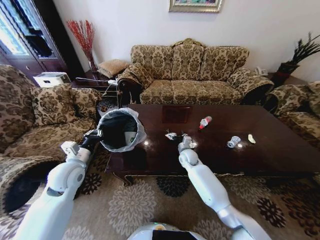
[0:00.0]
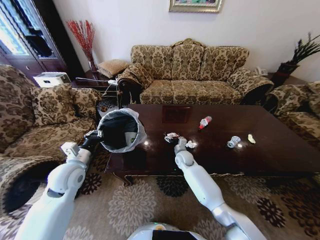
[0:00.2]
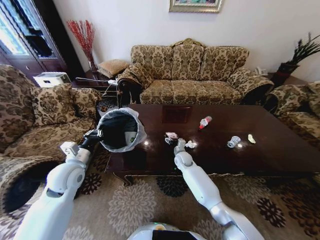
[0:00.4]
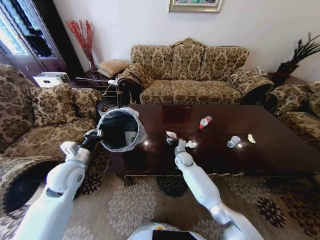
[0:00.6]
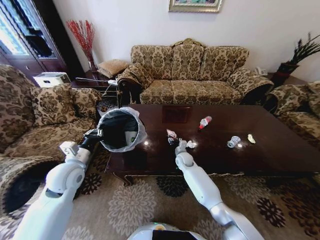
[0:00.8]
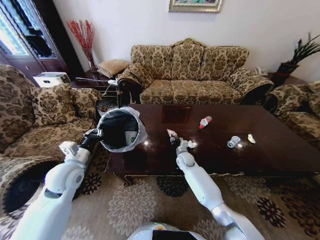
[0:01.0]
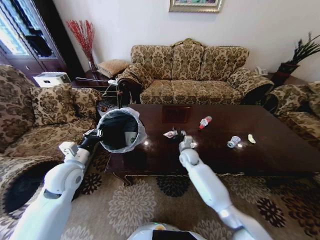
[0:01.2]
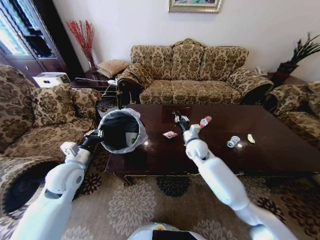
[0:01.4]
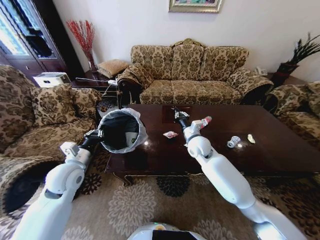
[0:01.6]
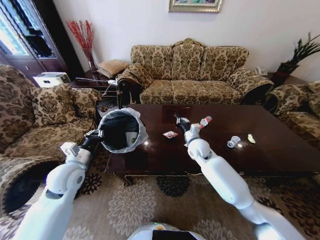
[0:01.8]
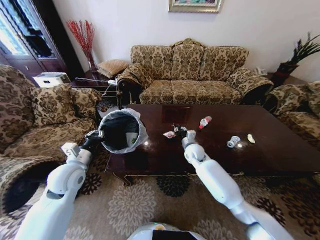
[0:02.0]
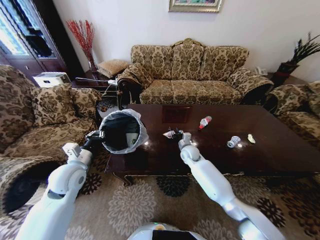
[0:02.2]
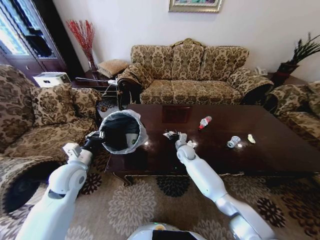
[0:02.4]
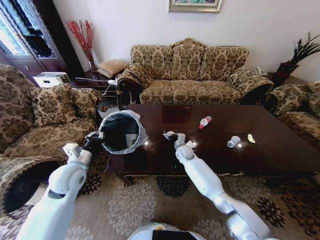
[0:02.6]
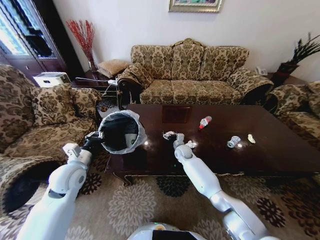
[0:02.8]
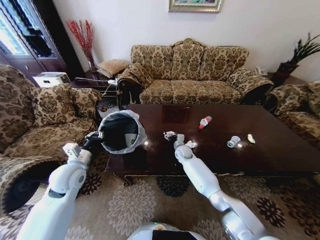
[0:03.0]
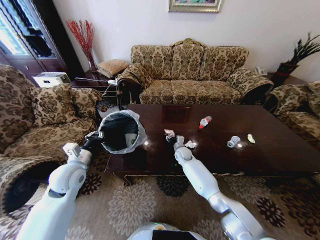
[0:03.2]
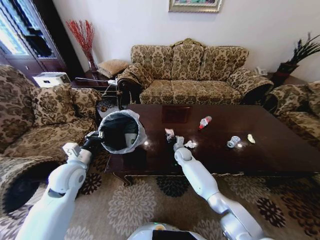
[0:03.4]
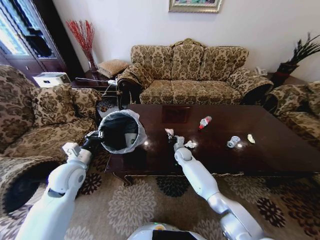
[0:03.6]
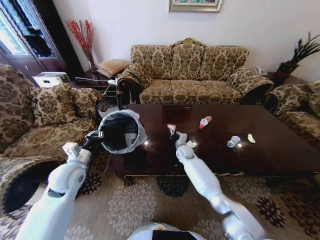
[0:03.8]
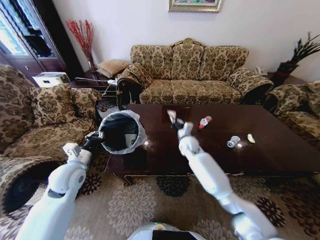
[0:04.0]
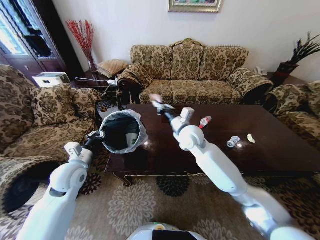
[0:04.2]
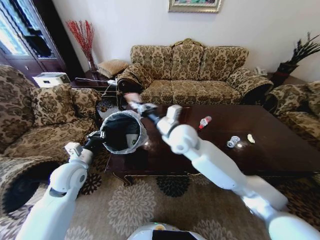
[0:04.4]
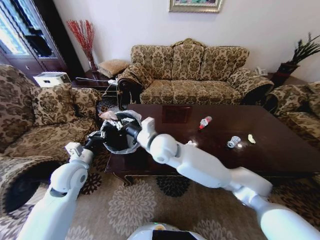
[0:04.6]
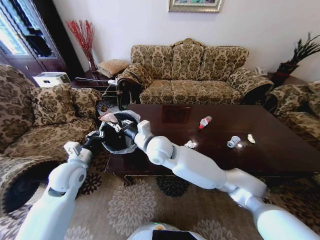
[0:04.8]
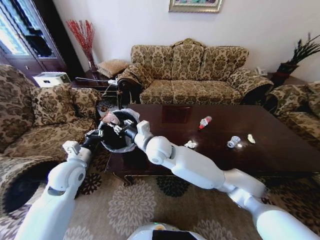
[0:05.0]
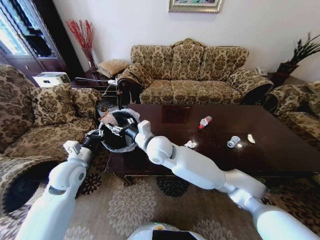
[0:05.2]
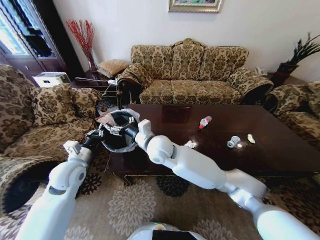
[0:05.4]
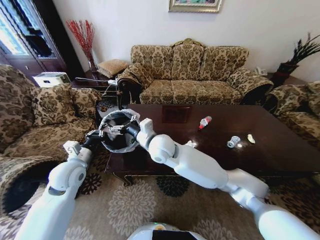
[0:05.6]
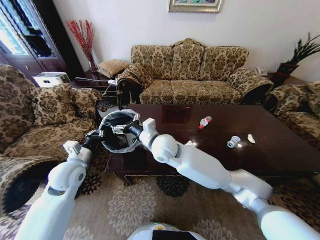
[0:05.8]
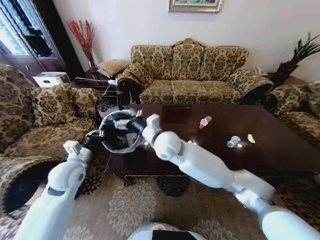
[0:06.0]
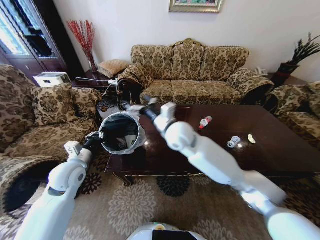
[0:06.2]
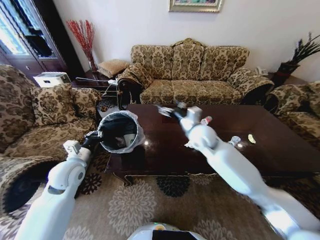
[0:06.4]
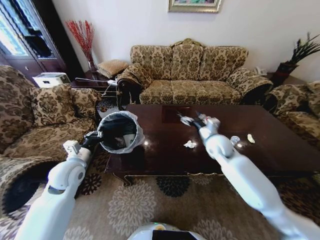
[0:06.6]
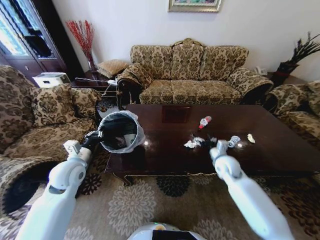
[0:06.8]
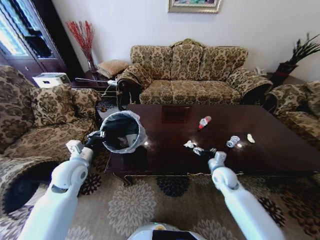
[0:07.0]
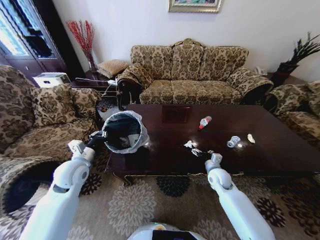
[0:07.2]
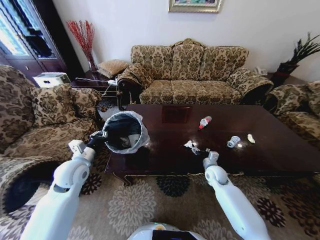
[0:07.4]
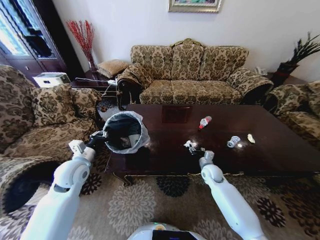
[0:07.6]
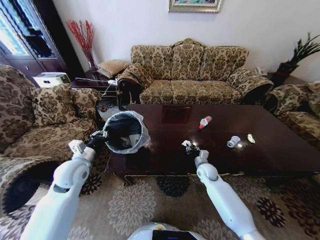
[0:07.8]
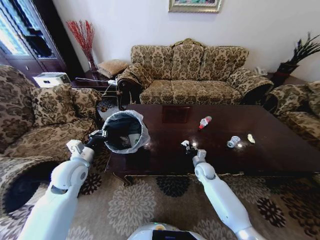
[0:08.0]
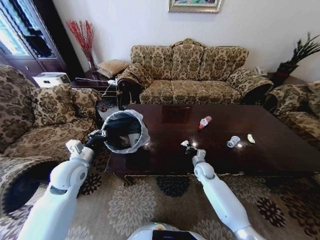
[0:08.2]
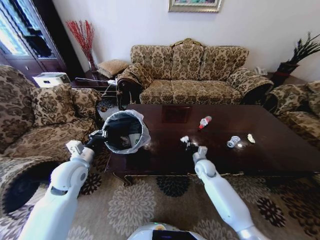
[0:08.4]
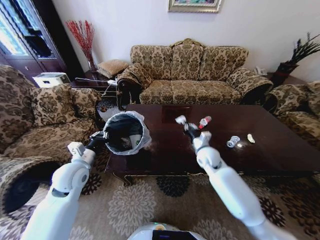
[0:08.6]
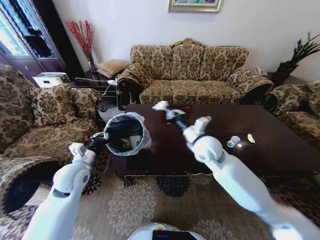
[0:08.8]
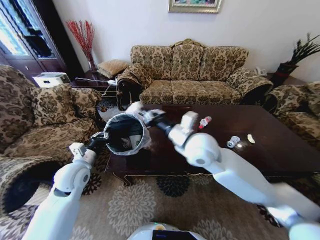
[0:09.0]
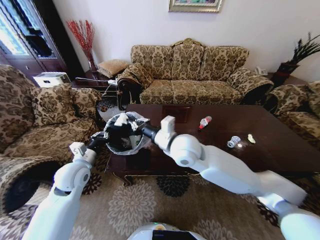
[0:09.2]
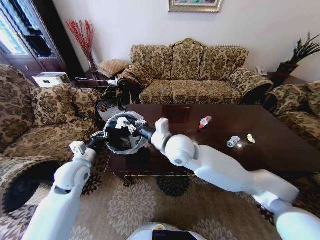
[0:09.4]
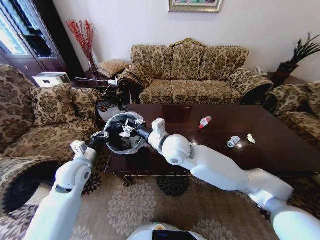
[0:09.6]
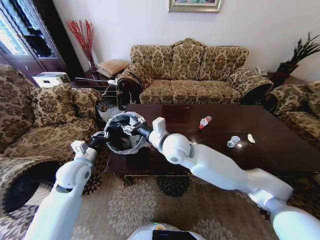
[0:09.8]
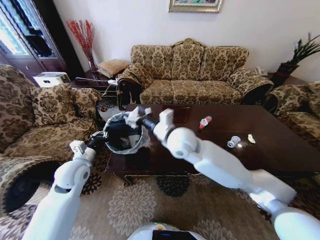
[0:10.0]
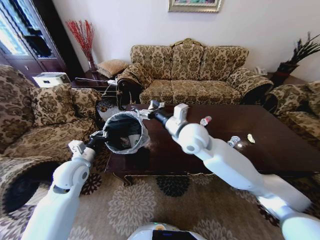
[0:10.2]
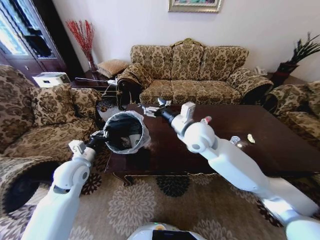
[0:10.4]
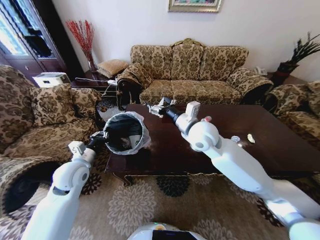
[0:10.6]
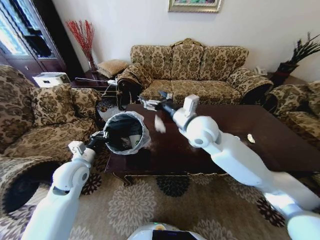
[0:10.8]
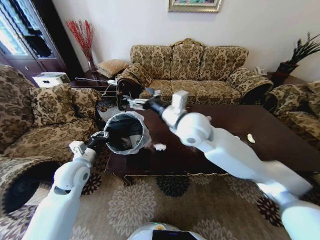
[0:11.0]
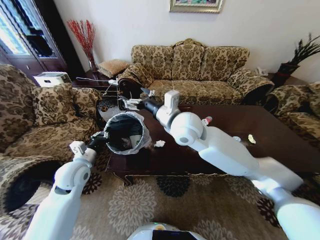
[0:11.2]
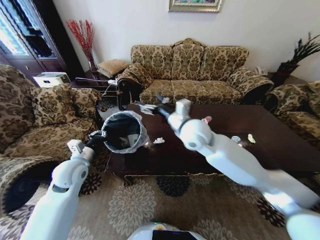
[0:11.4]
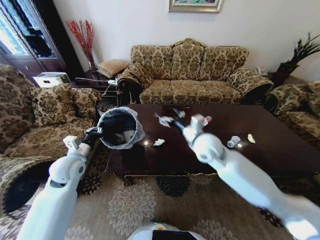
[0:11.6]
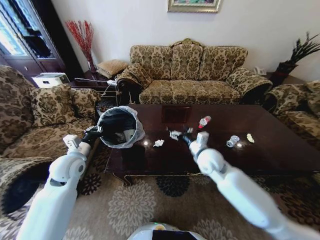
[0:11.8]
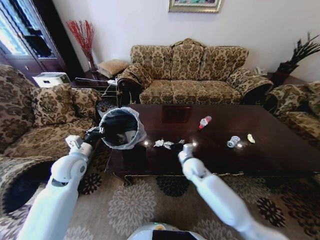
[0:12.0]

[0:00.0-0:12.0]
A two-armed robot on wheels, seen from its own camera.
Task of the whole recording: Move to the front of the table and place the trash on the table into the trash bin.
0:00.0 to 0:01.6: The right gripper is displaced upward by roughly 15 cm, and closes up.
0:01.6 to 0:03.0: The right gripper shifts about 20 cm downward and forward, and opens up.
0:03.0 to 0:04.4: The right gripper shifts roughly 30 cm upward and backward, and closes its fingers.
0:04.4 to 0:06.0: The right gripper opens up.
0:06.0 to 0:07.6: The right gripper shifts approximately 35 cm downward and to the right, and closes its fingers.
0:07.6 to 0:09.0: The right gripper goes roughly 35 cm upward and to the left, and closes up.
0:09.0 to 0:10.4: The right gripper reaches roughly 5 cm to the left, then returns, and opens.
0:10.4 to 0:12.0: The right gripper is displaced downward by about 25 cm.

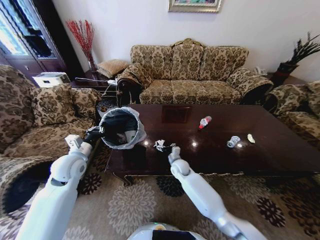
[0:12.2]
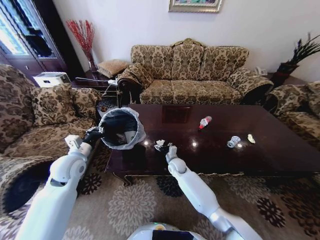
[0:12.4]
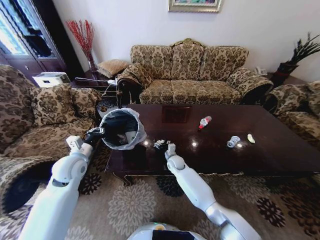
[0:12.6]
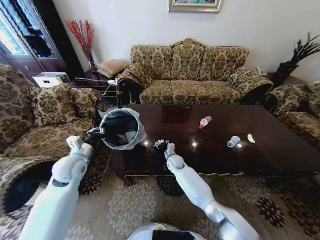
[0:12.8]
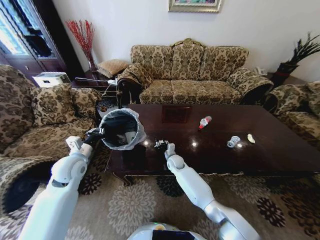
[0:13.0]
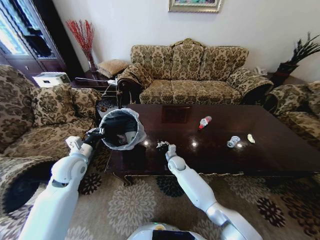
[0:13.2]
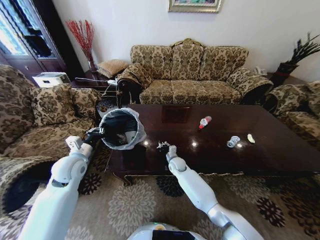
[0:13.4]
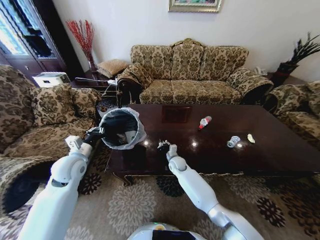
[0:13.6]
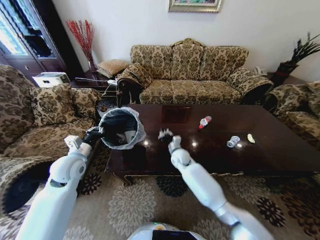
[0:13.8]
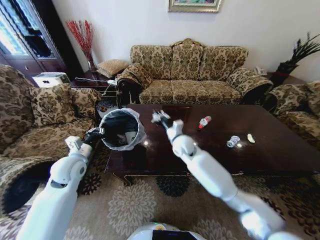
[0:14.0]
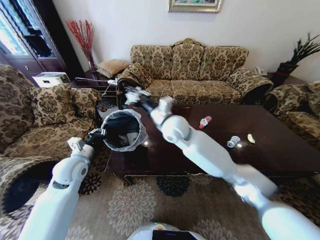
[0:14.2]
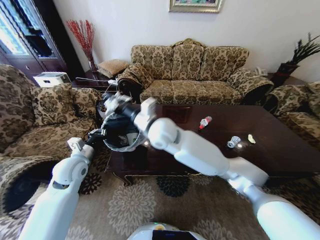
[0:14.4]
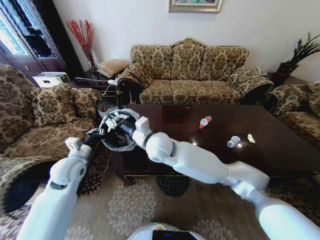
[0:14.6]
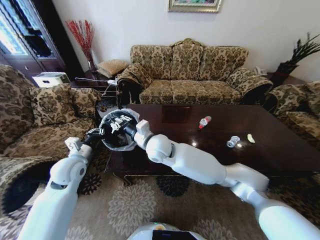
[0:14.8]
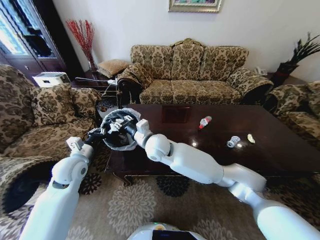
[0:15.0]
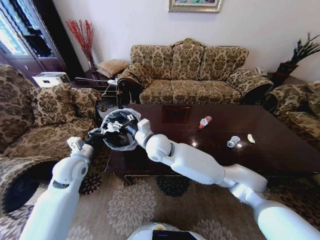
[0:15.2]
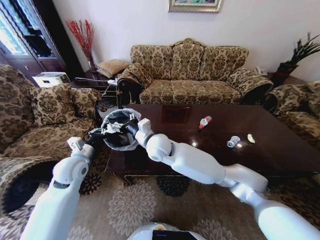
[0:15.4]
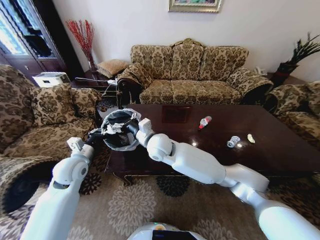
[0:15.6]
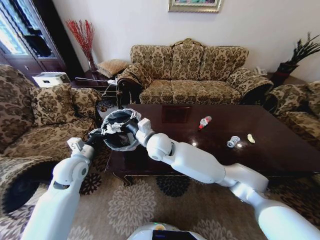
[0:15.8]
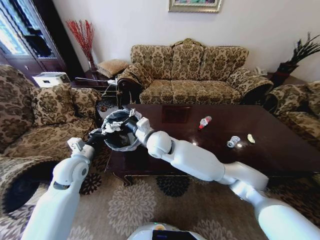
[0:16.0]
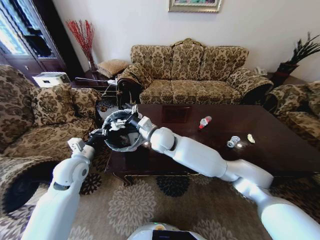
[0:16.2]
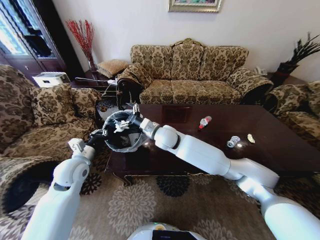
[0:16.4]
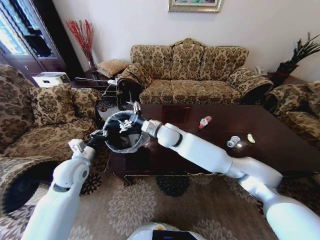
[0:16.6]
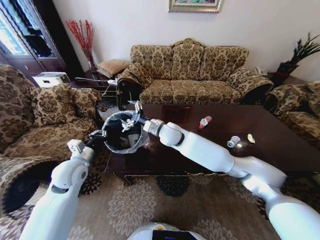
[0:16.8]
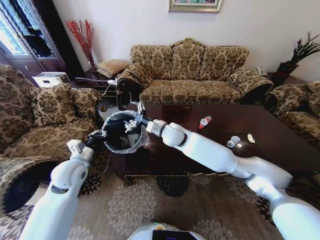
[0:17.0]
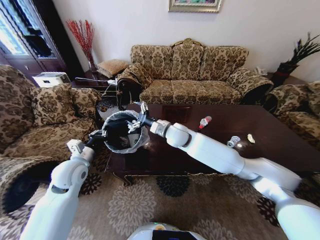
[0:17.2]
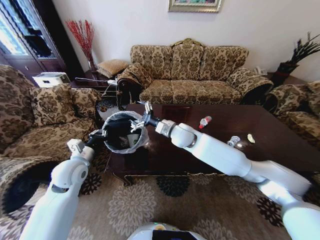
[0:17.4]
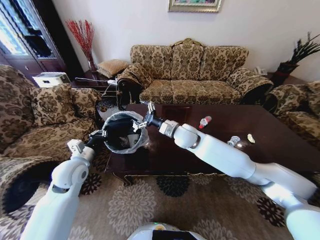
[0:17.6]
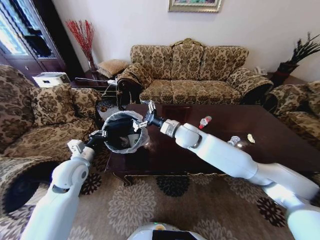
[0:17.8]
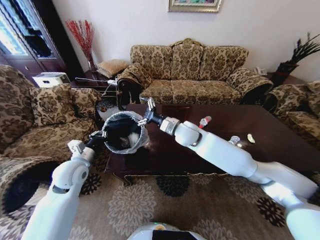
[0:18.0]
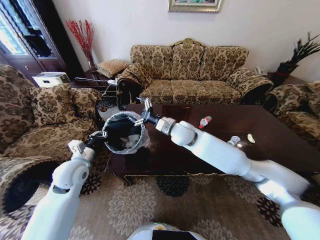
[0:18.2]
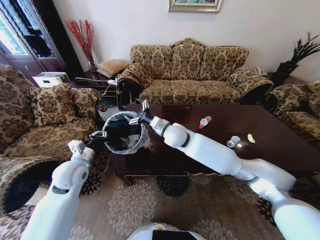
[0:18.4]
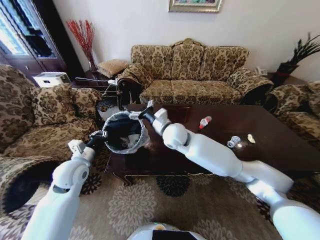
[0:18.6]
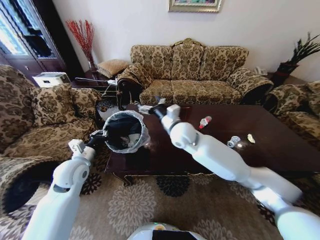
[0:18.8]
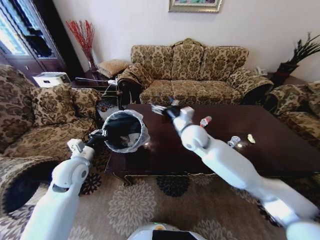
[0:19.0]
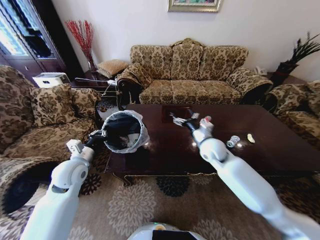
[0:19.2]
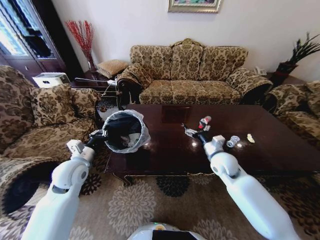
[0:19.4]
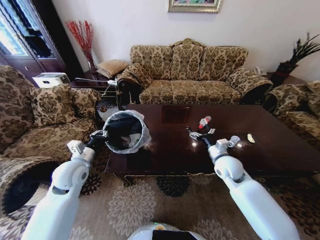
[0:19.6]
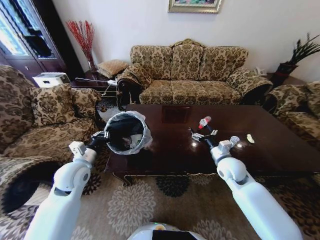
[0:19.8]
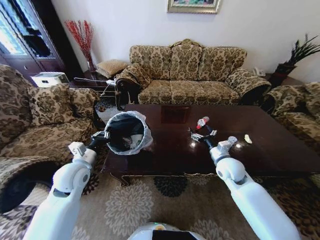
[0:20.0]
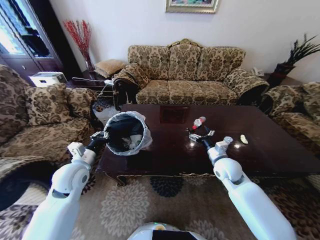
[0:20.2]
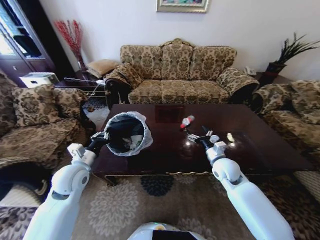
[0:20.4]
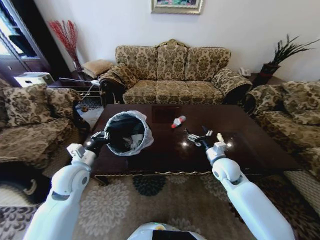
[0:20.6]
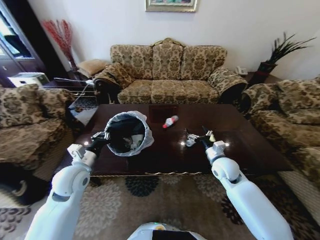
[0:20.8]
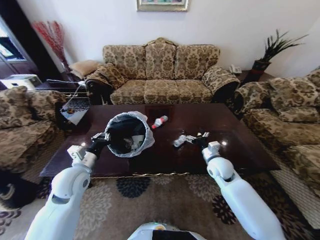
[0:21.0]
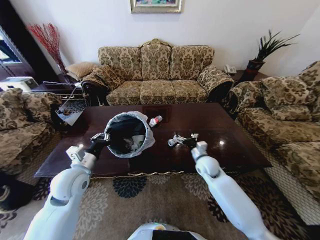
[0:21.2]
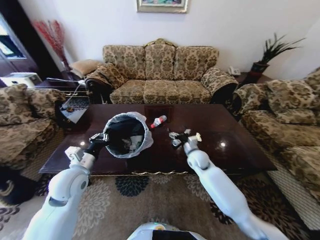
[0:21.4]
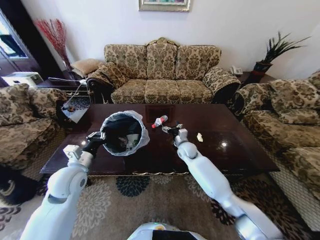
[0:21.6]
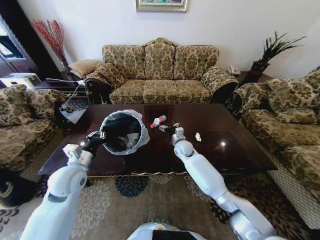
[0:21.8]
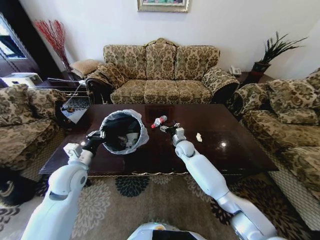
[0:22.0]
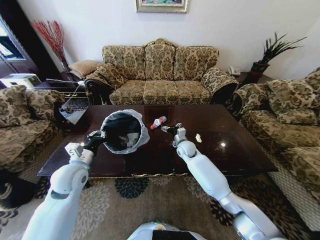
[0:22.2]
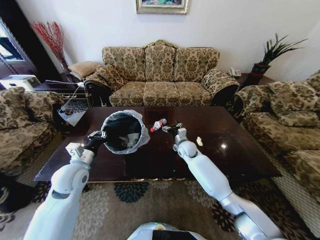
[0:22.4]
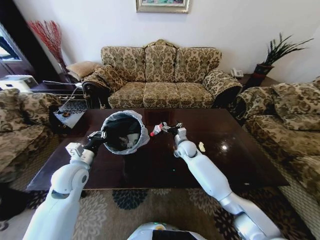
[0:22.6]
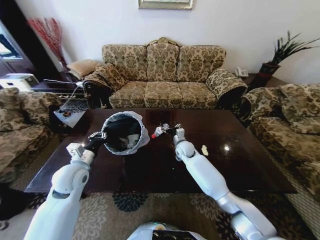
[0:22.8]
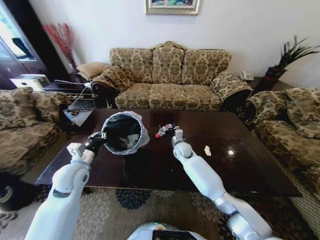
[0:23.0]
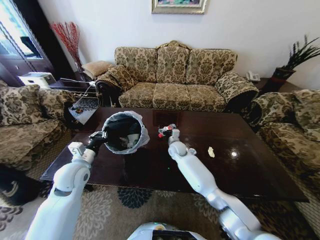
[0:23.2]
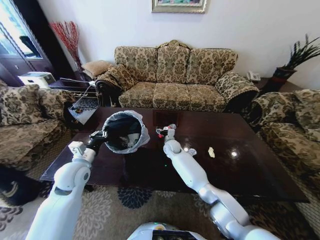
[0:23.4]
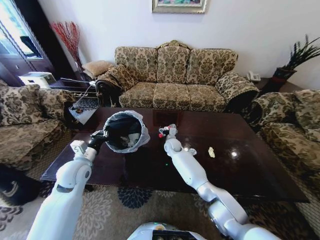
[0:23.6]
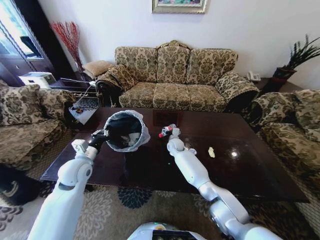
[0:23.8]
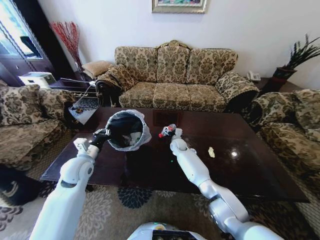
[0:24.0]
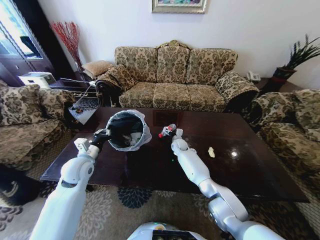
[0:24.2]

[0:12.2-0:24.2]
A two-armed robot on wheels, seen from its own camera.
Task of the whole recording: Move to the front of the table and place the trash on the table into the trash bin.
0:12.2 to 0:13.8: The right gripper moves upward, roughly 5 cm, and closes its fingers.
0:13.8 to 0:15.2: The right gripper is displaced upward, to the left and backward by about 25 cm, and opens its fingers.
0:15.2 to 0:16.6: The right gripper heads forward, covering roughly 5 cm, and opens its fingers.
0:16.6 to 0:18.2: The right gripper is displaced to the right by about 5 cm.
0:18.2 to 0:19.8: The right gripper goes approximately 25 cm to the right, downward and backward.
0:19.8 to 0:21.2: The right gripper heads to the left and downward, covering roughly 10 cm.
0:21.2 to 0:22.6: The right gripper is displaced forward and to the left by about 15 cm.
0:22.6 to 0:24.2: The right gripper moves forward and downward, about 10 cm, and moves about 10 cm to the left and comes back.
